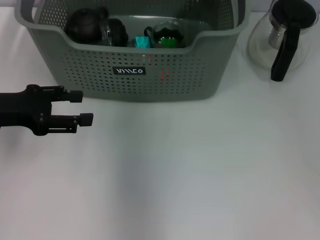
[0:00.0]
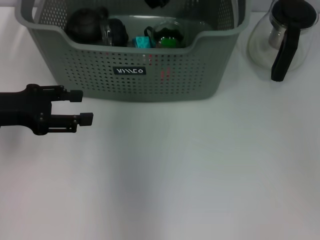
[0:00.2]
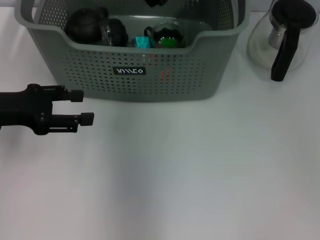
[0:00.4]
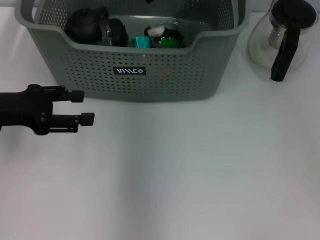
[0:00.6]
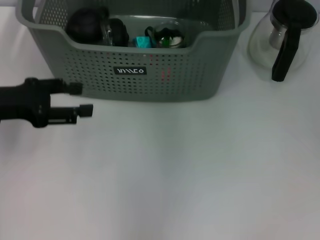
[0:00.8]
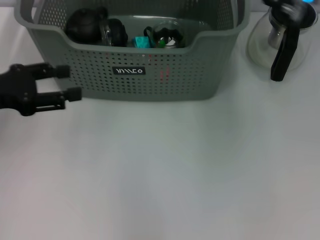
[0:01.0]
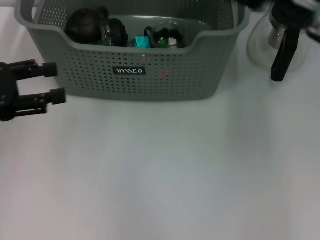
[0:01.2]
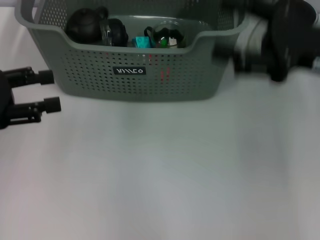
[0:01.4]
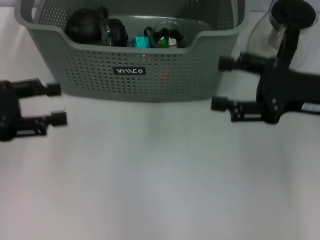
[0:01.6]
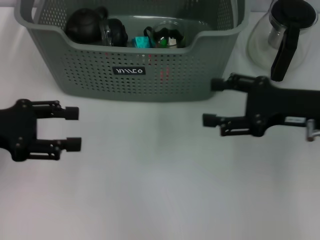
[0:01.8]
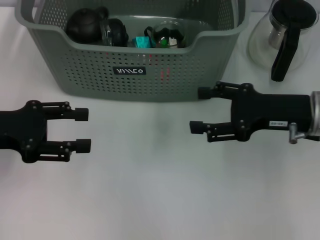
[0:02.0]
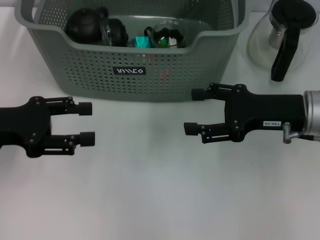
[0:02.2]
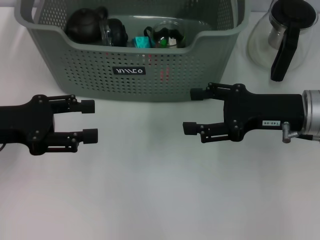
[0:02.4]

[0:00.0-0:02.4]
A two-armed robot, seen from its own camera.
Task of the whole recording: pick up the teacup on the table and place it into the storage bin, pick up the block on the table and place it into the storage bin.
0:00.0 to 0:01.2: The right gripper is displaced to the right and backward by roughly 20 cm, and opens up.
0:01.2 to 0:02.4: The right gripper is displaced downward by roughly 10 cm.
